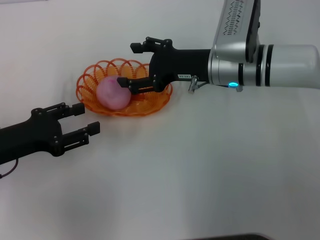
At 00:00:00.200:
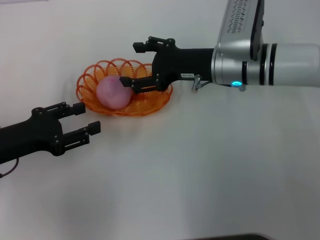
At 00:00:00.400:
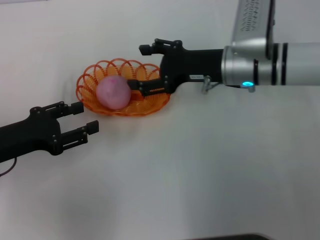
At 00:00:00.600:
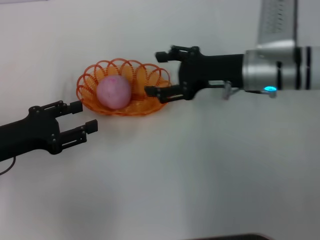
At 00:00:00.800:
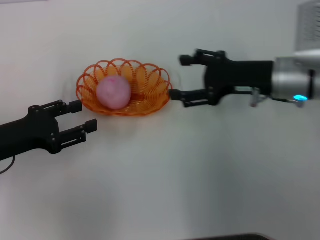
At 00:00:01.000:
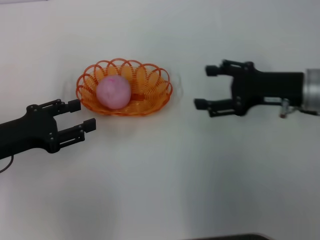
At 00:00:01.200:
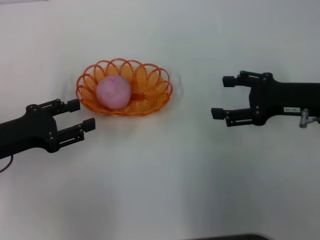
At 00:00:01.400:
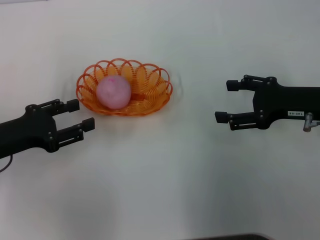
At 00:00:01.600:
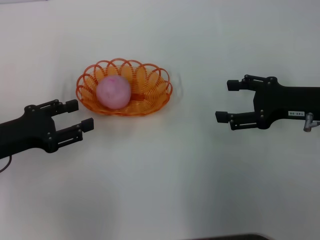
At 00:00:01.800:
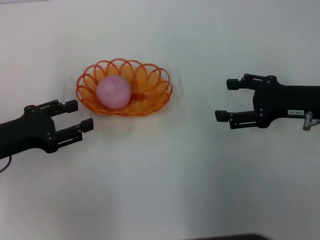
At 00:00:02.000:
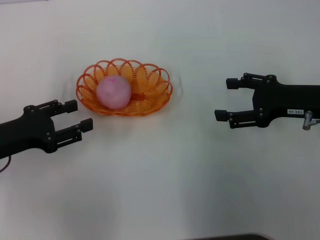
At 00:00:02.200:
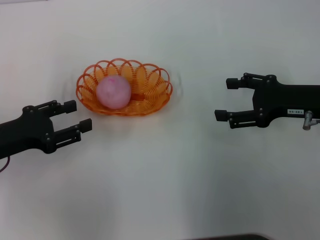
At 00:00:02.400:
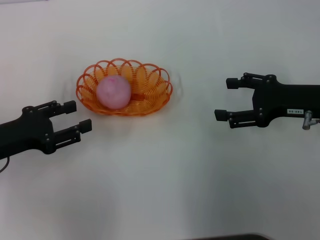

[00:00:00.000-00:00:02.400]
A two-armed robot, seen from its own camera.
00:00:00.000 to 00:00:01.200: The right gripper moves to the right and backward, about 15 cm.
00:00:01.200 to 00:00:02.400: Both grippers stay about where they are.

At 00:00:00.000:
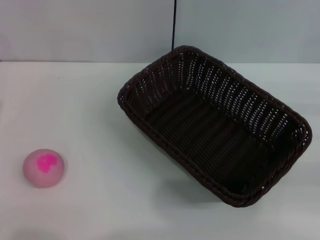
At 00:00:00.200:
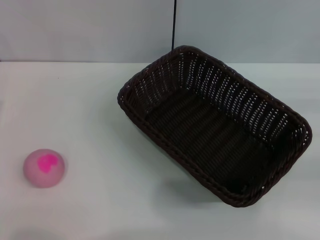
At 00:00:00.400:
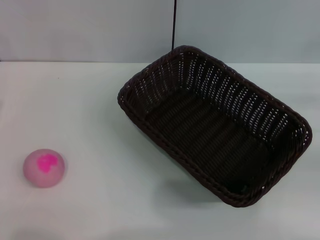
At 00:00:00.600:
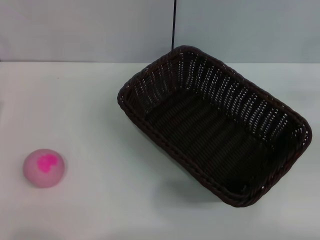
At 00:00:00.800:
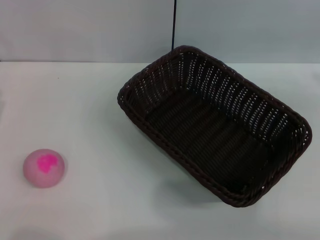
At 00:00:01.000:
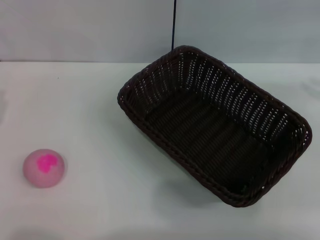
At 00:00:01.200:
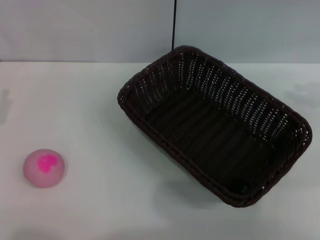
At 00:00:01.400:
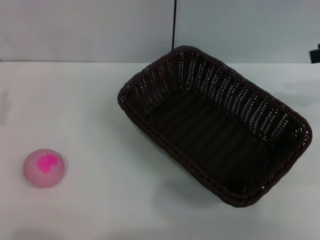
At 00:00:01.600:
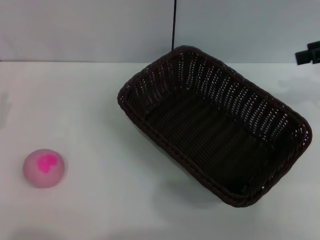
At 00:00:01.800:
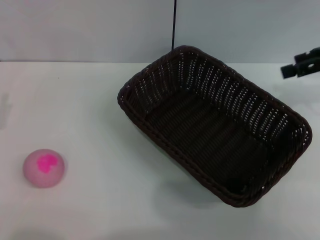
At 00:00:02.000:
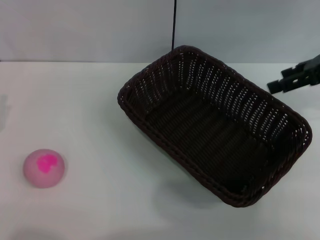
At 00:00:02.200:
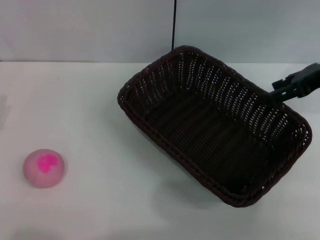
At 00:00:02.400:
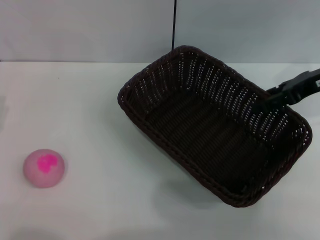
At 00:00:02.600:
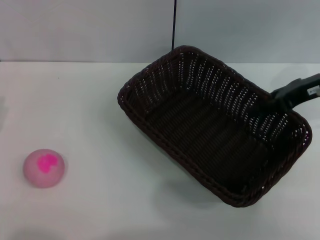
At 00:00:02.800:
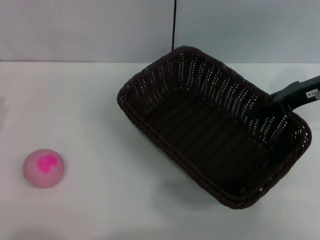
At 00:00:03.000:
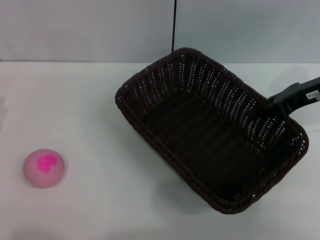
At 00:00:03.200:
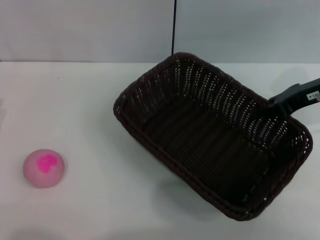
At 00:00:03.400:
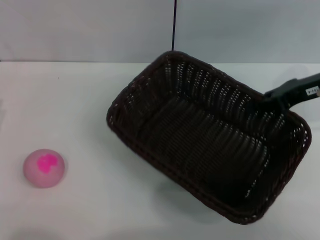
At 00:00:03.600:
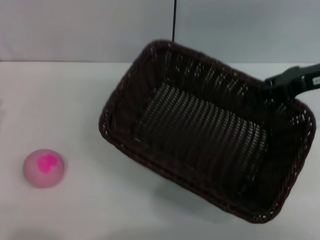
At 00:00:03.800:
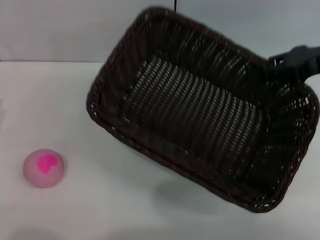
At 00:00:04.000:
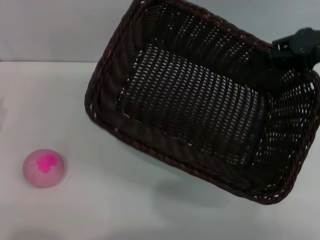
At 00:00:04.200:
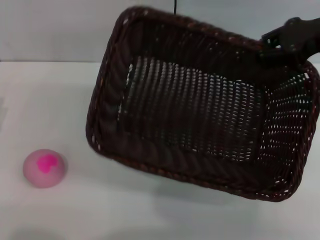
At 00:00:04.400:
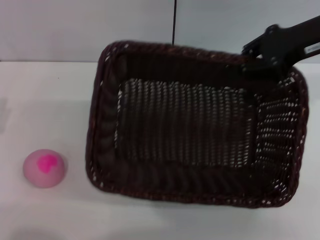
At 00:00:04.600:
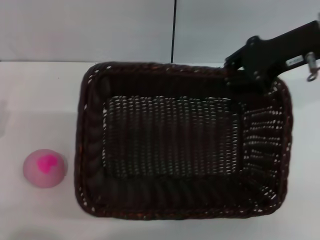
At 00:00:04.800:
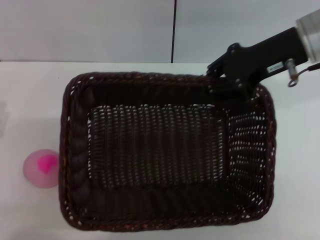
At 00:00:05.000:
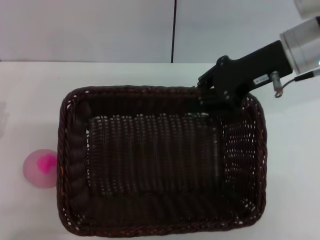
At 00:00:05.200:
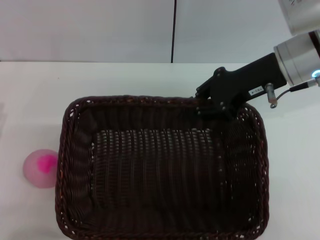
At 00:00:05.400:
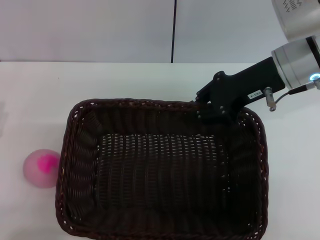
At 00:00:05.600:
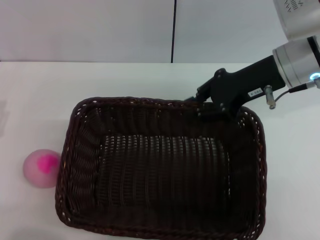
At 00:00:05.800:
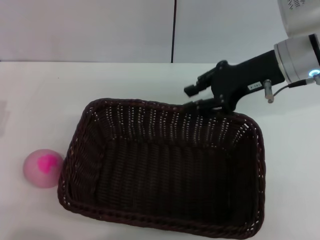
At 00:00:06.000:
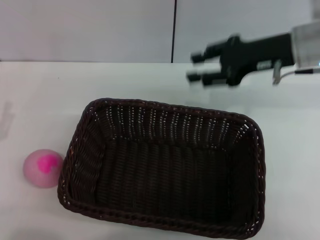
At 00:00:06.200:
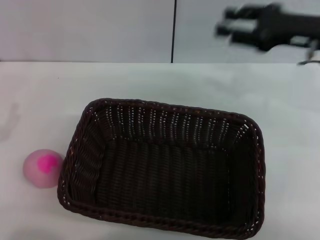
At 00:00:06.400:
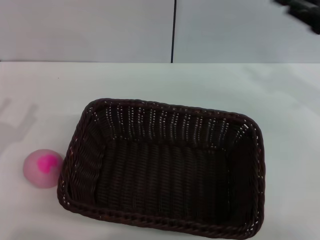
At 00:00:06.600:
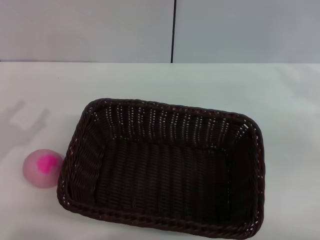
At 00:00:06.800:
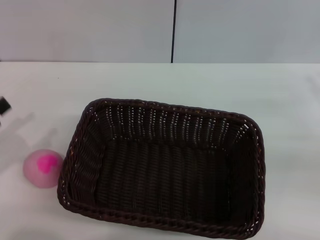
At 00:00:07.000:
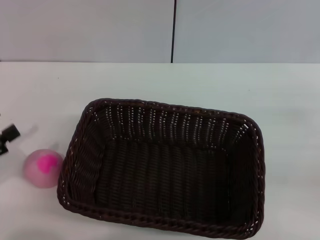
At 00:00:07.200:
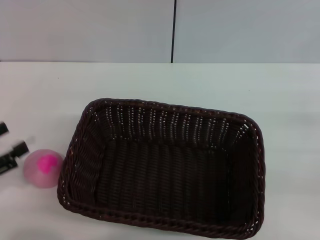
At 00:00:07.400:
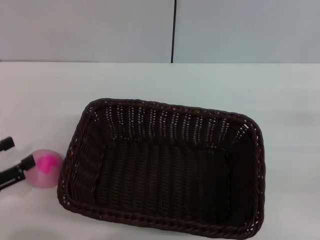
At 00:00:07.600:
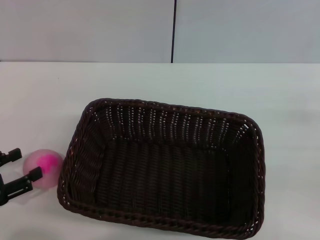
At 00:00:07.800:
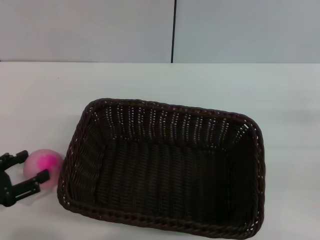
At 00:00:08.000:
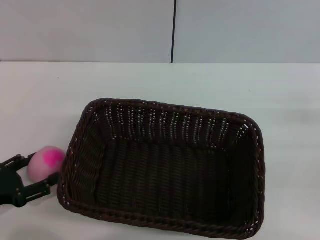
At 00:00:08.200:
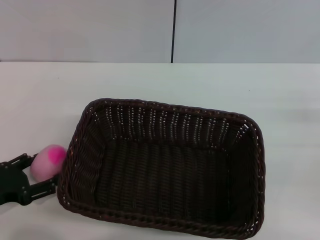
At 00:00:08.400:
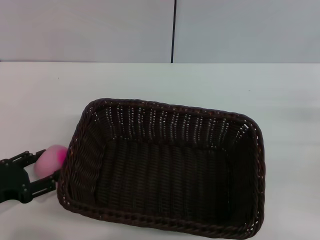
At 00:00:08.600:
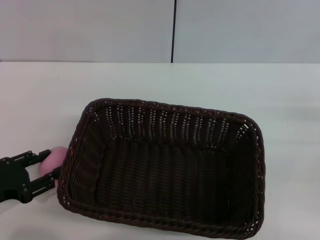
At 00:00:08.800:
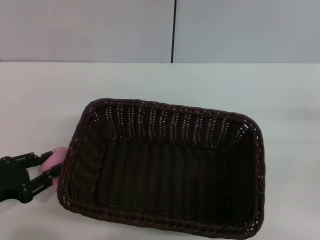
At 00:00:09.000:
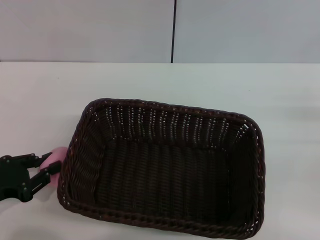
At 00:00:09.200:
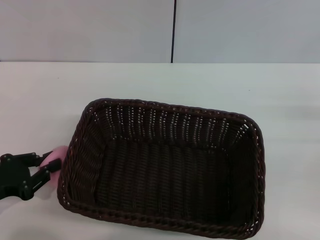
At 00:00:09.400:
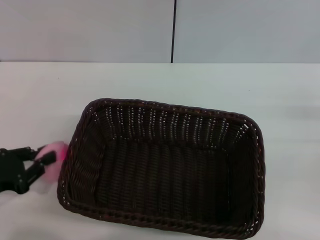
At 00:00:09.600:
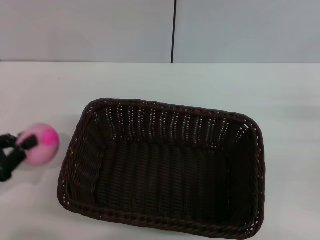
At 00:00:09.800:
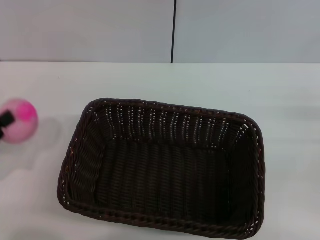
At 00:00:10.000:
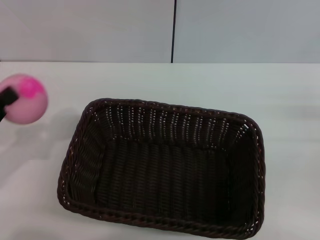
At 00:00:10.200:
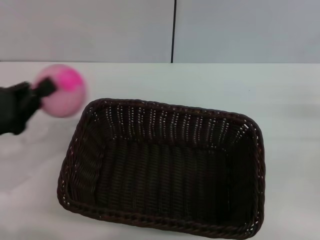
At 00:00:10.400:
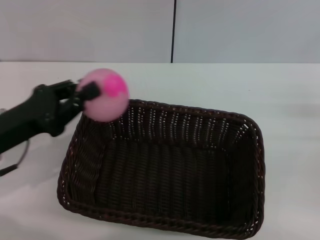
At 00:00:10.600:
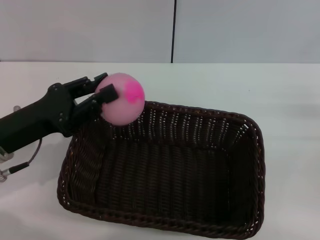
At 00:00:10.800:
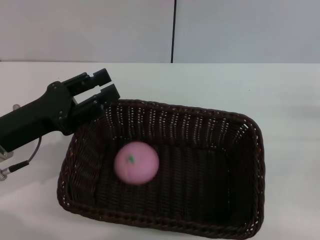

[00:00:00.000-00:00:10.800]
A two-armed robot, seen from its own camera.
Step, 00:00:00.000 to 00:00:03.800: Pick up the dark basket with the right gripper.
Step, 00:00:04.000 to 00:00:05.800: Place the dark basket in the center of view with the right gripper.
Step, 00:00:06.000 to 00:00:09.800: Pick up the peach with the left gripper.
00:00:00.000 to 00:00:01.600: The right gripper goes some 20 cm upward, forward and to the left.
00:00:01.600 to 00:00:03.000: The right gripper shifts about 10 cm downward and to the left, and opens, then closes once more.
00:00:03.000 to 00:00:04.600: The right gripper travels upward and to the left by some 10 cm, and closes its fingers.
00:00:04.600 to 00:00:06.200: The right gripper changes place by roughly 5 cm, and opens.
00:00:06.200 to 00:00:07.800: The right gripper heads backward, to the right and downward, covering some 20 cm.
00:00:07.800 to 00:00:09.200: The left gripper closes.
00:00:09.200 to 00:00:10.800: The left gripper travels to the right, forward and upward by some 10 cm.

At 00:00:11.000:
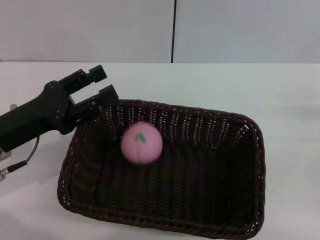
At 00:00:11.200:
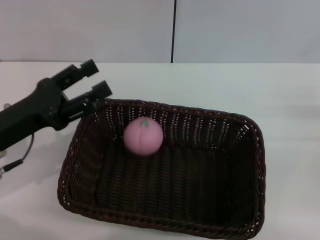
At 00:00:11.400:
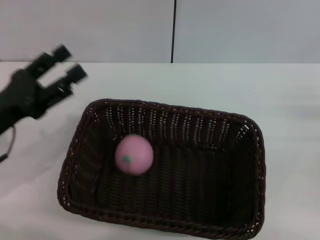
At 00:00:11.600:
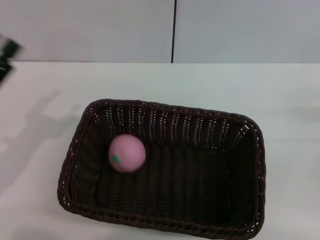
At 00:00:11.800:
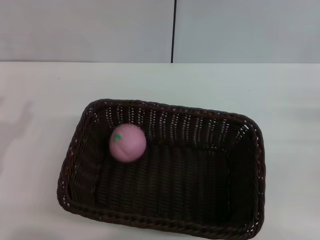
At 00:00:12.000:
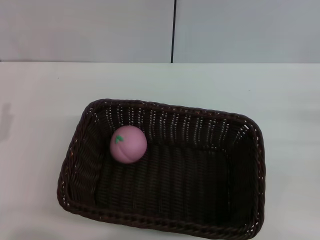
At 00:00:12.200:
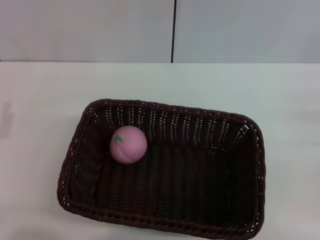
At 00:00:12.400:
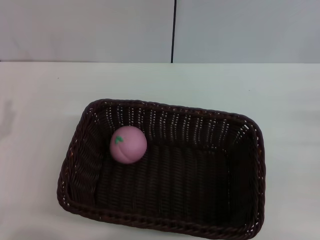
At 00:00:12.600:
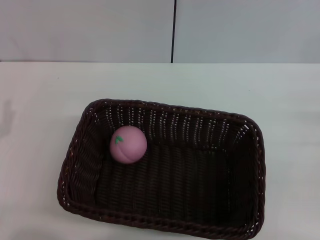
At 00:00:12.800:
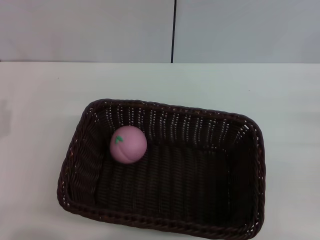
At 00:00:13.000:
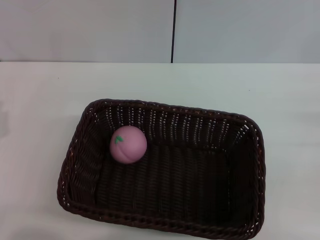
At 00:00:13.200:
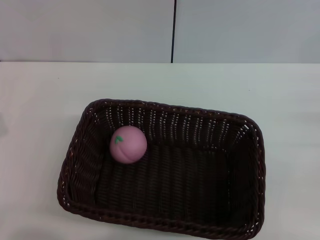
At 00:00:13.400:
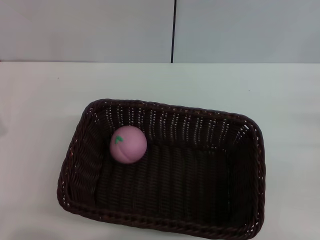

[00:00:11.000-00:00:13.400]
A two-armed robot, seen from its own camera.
00:00:11.000 to 00:00:12.200: The left gripper is displaced backward and to the left by roughly 10 cm.
